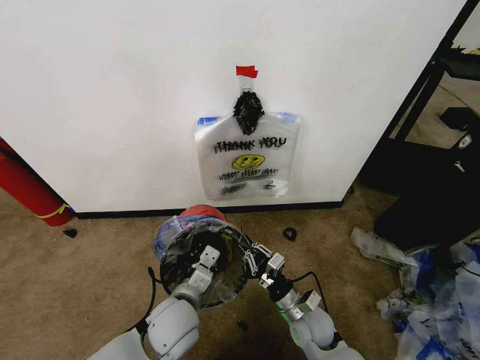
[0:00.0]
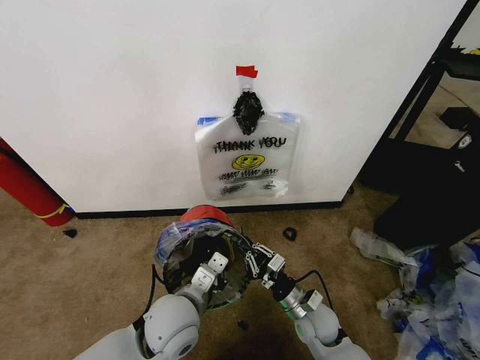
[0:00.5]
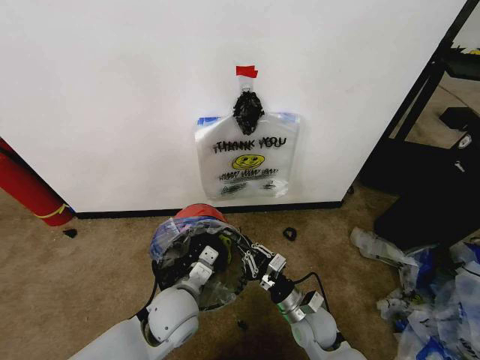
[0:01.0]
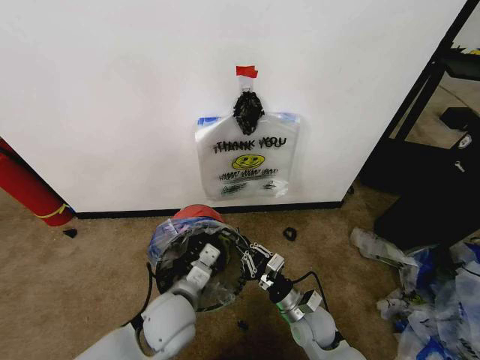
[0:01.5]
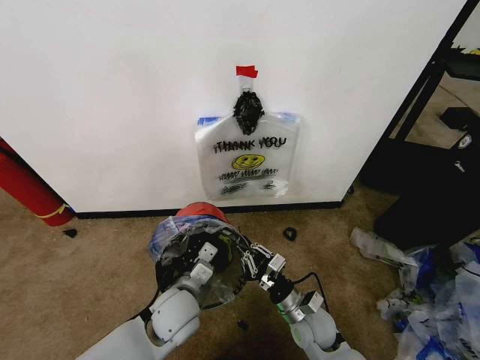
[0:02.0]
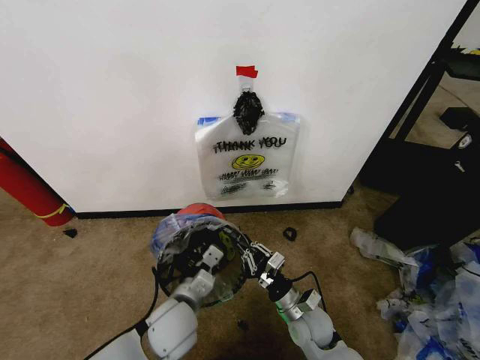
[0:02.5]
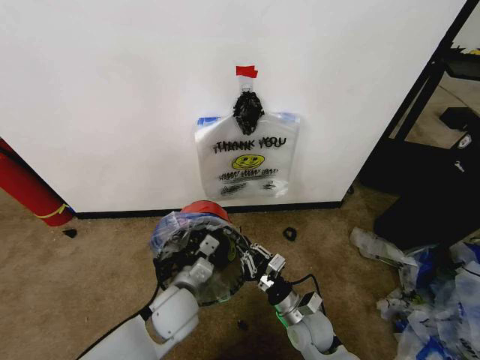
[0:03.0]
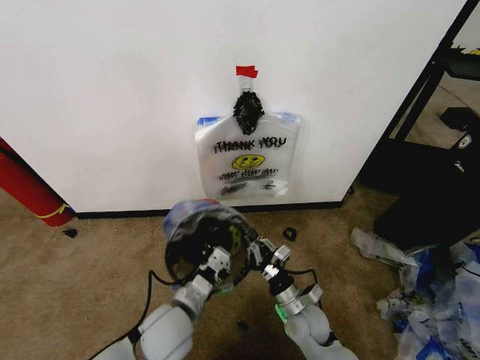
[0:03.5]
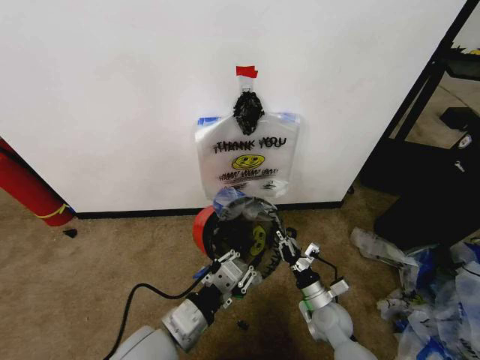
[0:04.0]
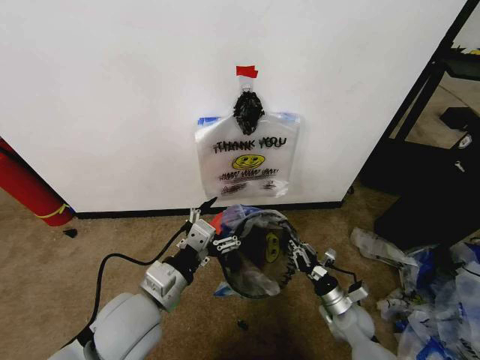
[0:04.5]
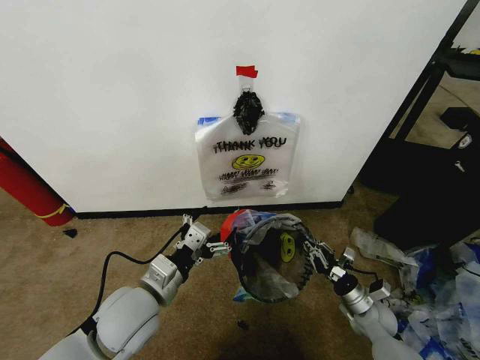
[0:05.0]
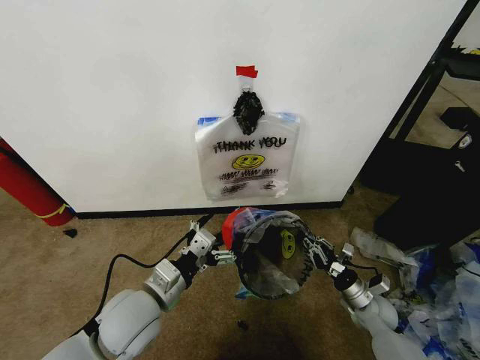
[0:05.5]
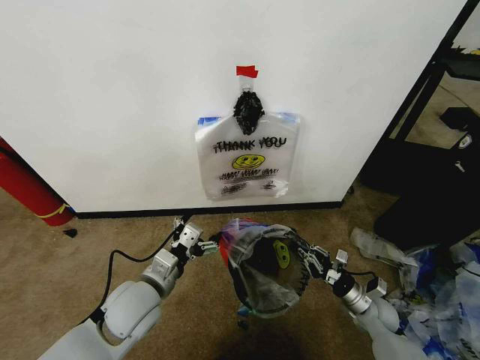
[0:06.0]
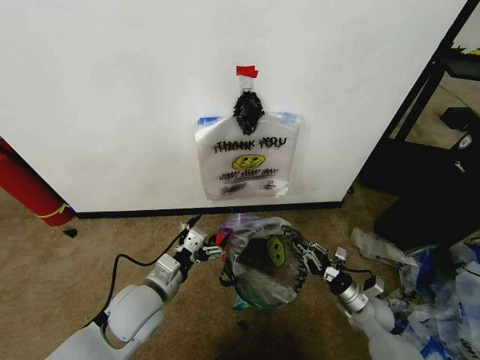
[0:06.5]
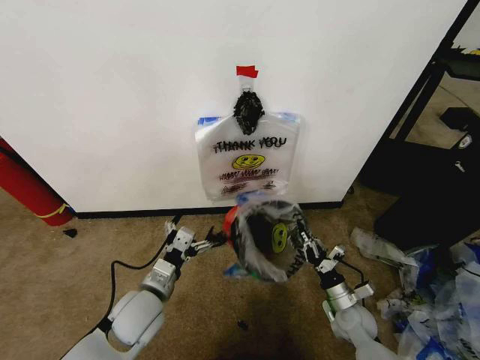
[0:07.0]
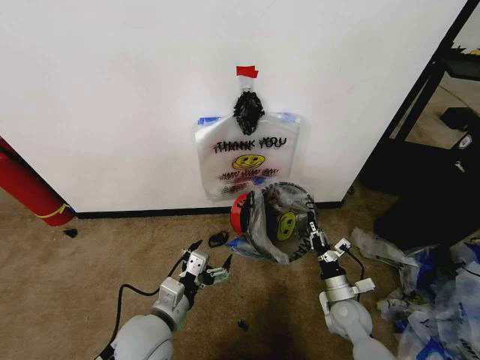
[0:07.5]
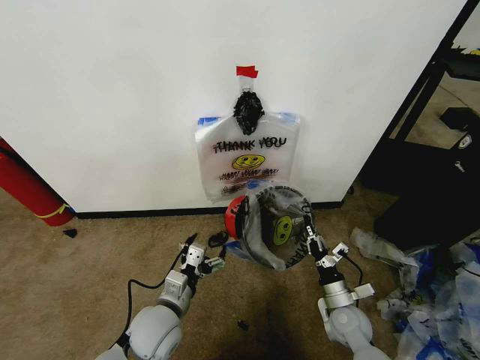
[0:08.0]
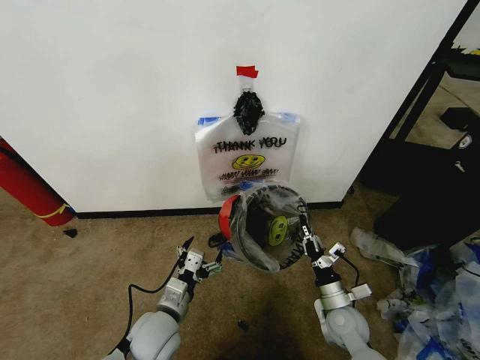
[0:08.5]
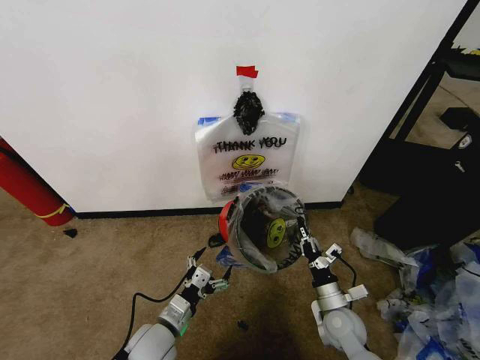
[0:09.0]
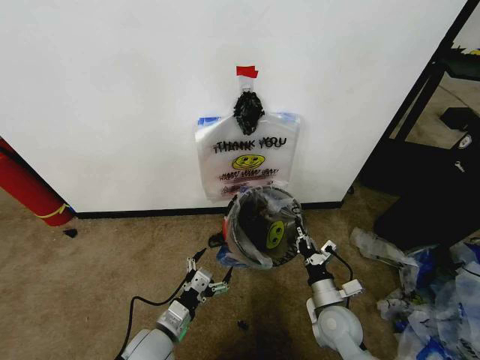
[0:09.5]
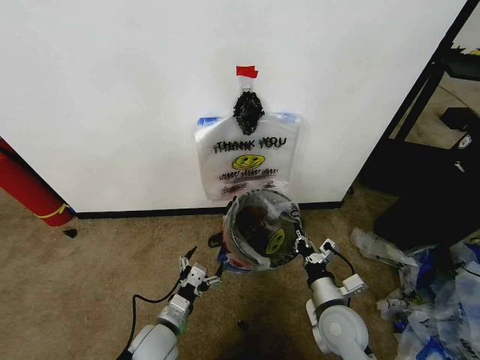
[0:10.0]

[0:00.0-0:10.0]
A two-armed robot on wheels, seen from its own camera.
Task of the whole recording: Pick up the garbage bag from the wall and place it over the trash bin.
0:00.0 to 0:02.0: There are only small adjustments of the grippers.
0:02.0 to 0:04.0: The right gripper shifts roughly 5 cm to the right. The left gripper heads backward and upward, covering roughly 10 cm.
0:04.0 to 0:06.0: The left gripper heads forward, covering about 10 cm, and opens its fingers. The right gripper shifts some 10 cm to the right.
0:06.0 to 0:08.0: The right gripper moves to the left, roughly 10 cm. Meanwhile the left gripper is displaced downward by about 5 cm.
0:08.0 to 0:10.0: The left gripper goes approximately 5 cm downward. The right gripper goes roughly 10 cm upward and to the left.

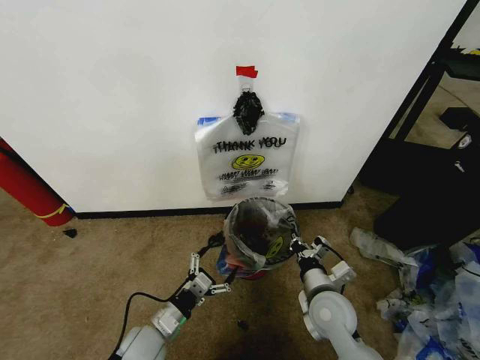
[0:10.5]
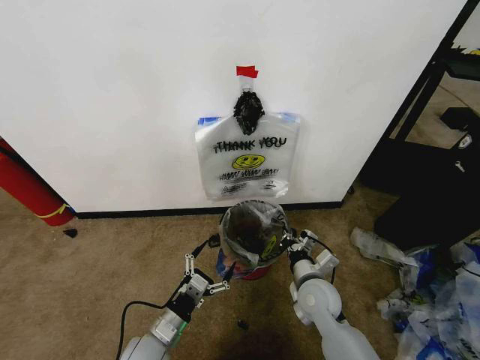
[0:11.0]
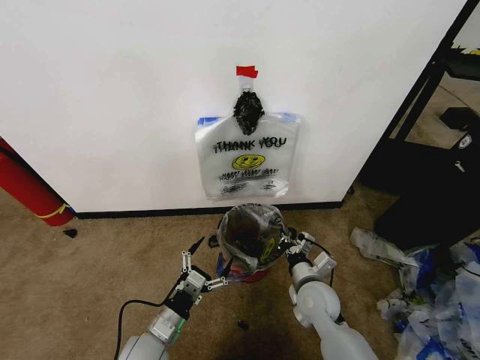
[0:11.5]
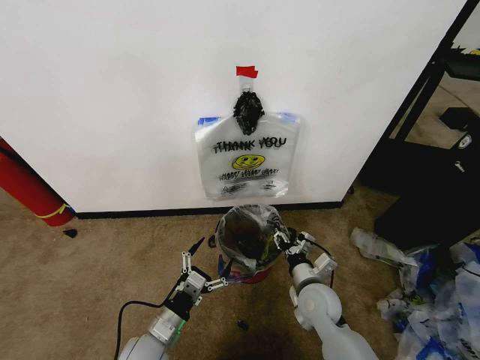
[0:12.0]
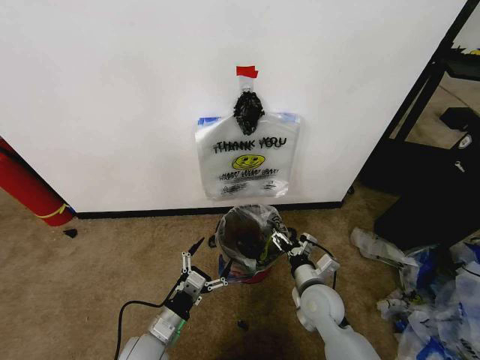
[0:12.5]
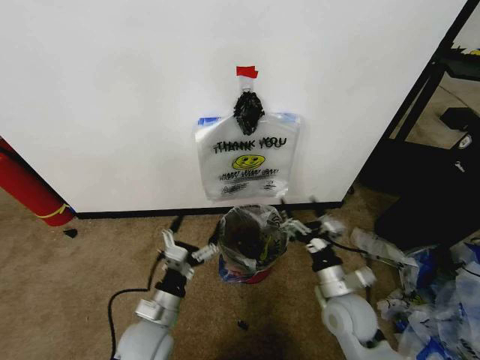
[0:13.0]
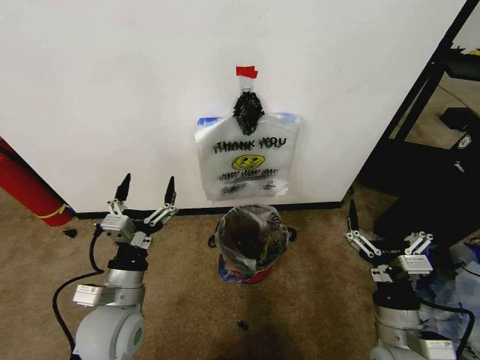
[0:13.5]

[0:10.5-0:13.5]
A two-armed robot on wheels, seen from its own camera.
Task of the whole recording: Pick up the garbage bag from the wall and place it over the trash bin.
0:10.5 to 0:12.0: The right gripper opens up.
0:12.0 to 0:13.5: The left gripper goes about 15 cm upward; the right gripper shifts some 20 cm backward, to the right and upward, and opens.
